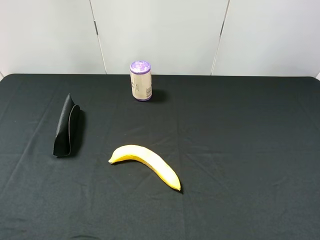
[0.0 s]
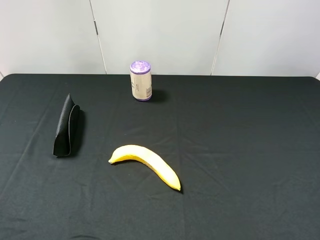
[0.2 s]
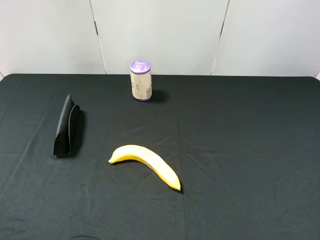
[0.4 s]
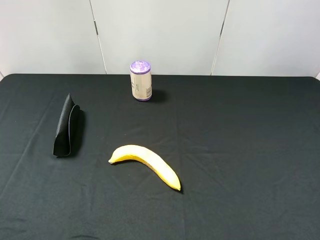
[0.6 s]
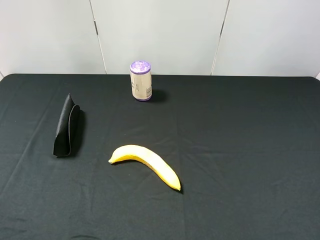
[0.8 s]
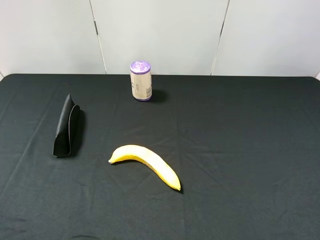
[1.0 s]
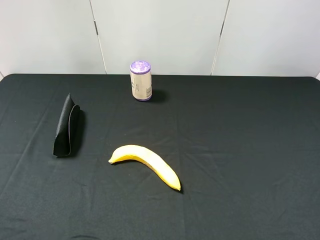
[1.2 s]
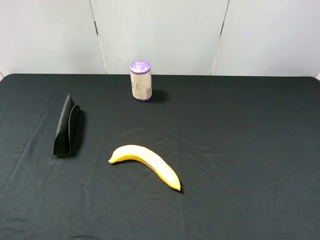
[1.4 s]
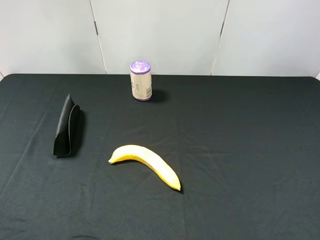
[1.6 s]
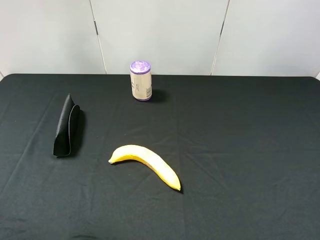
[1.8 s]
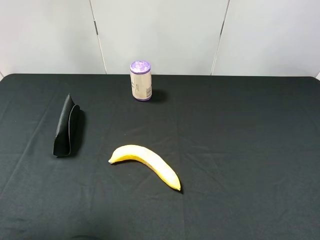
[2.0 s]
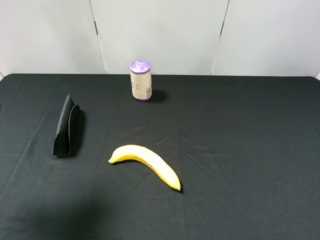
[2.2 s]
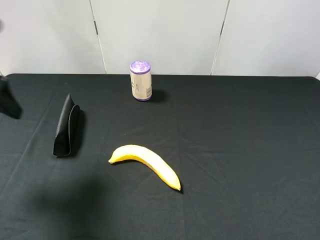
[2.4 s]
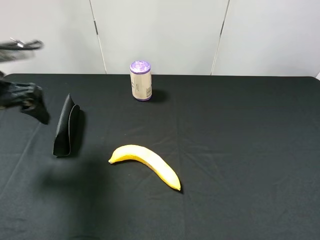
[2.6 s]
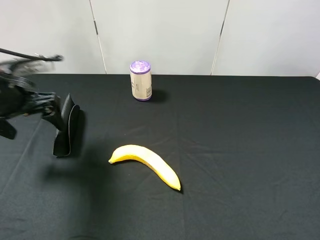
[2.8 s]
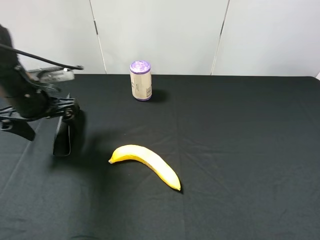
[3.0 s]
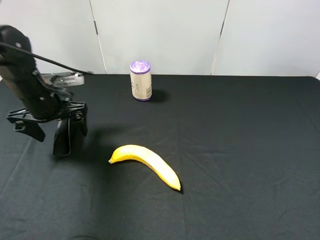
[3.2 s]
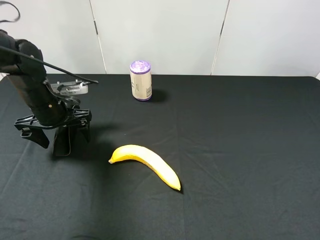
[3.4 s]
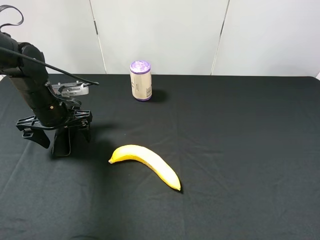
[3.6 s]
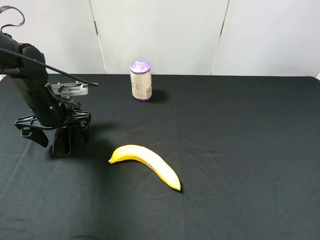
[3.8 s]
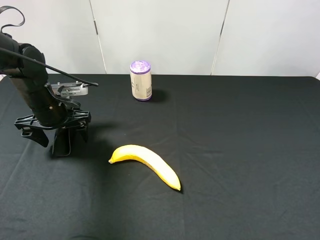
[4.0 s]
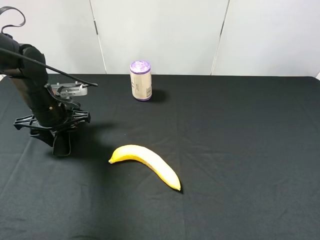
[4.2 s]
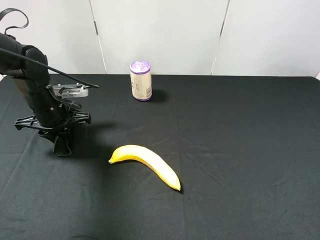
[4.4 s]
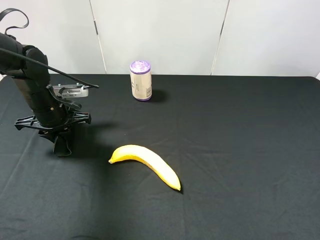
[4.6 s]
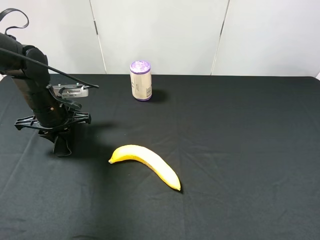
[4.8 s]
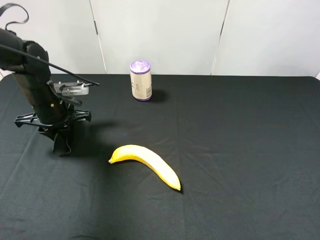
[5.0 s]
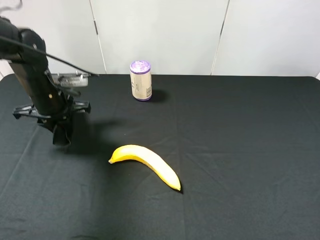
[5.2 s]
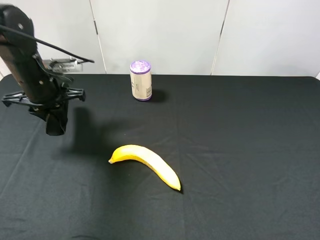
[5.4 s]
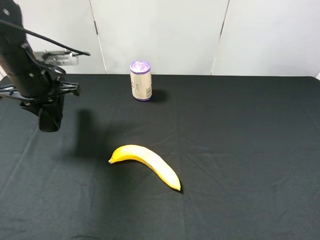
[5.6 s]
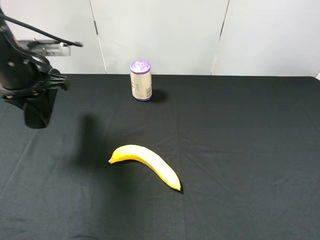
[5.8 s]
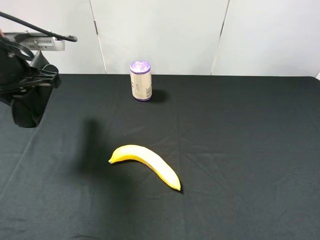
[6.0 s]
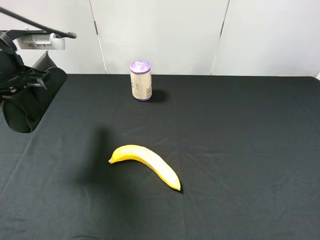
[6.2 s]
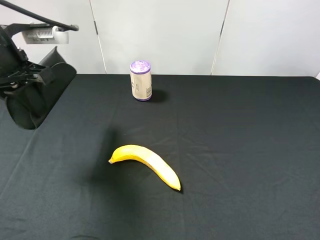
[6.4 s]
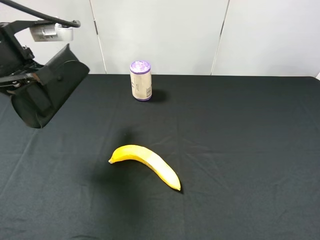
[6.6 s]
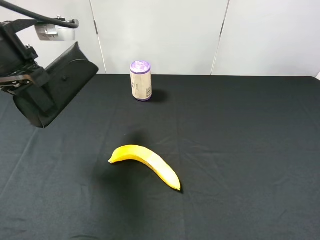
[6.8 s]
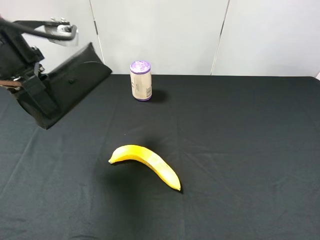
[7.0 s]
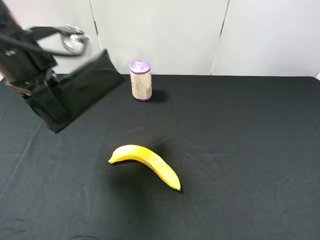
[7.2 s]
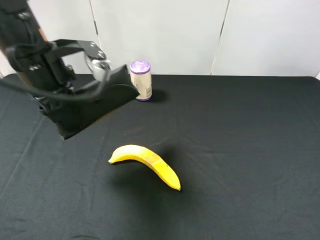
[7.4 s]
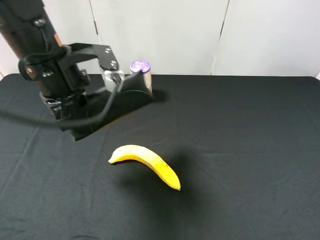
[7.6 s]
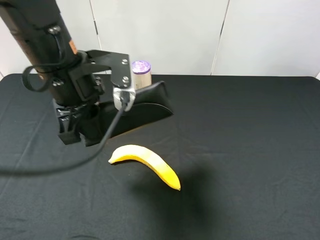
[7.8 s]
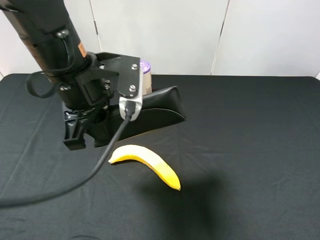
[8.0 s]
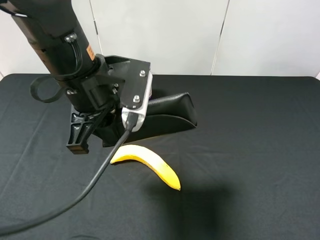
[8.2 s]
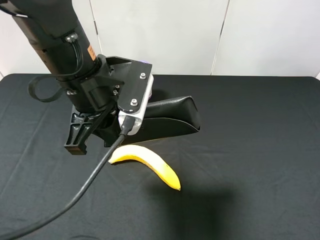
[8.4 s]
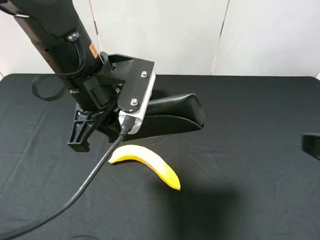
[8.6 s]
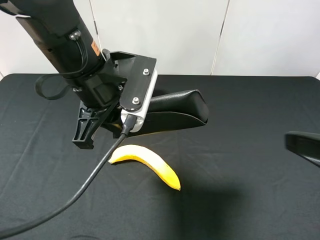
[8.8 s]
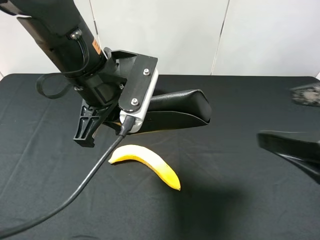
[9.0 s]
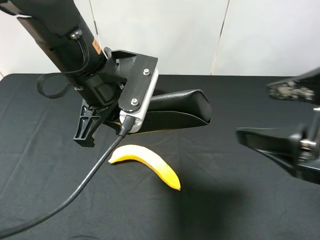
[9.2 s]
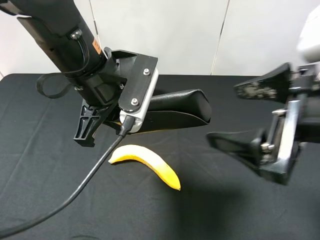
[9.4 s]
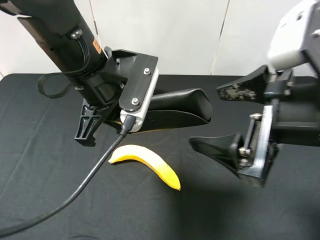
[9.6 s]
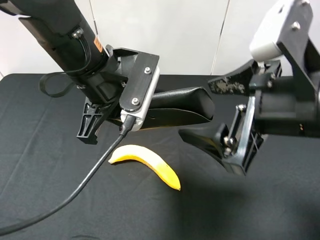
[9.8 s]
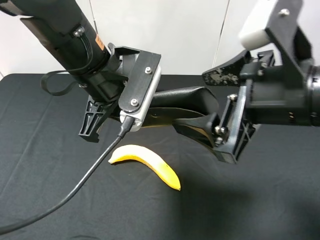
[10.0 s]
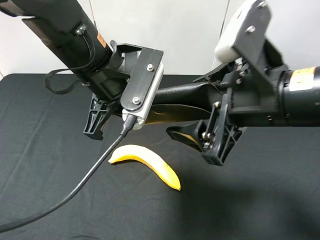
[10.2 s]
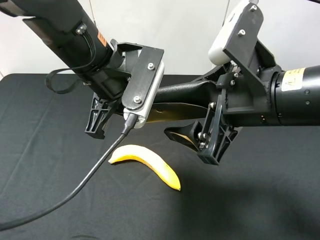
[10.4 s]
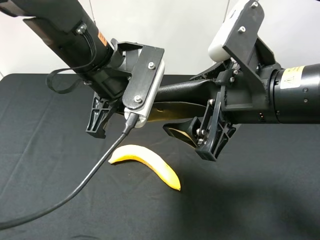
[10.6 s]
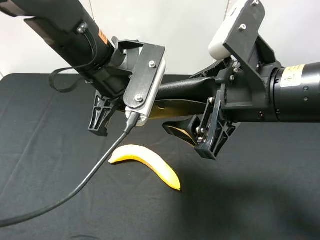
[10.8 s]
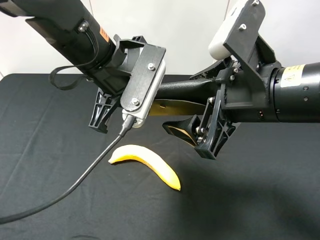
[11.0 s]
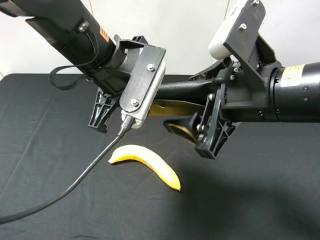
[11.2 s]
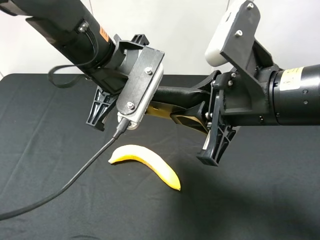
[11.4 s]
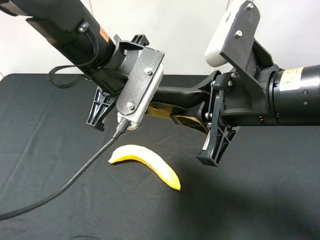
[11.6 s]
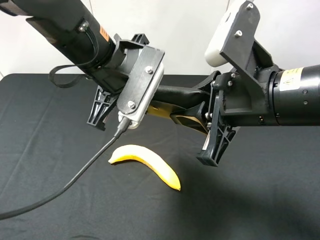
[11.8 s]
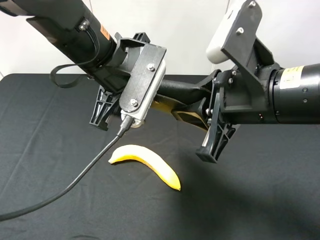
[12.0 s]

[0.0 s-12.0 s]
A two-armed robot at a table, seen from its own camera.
Task of the whole recording: use the left gripper to pick up the item and transfer it from the left gripper to the right gripper.
1.6 to 3.0 s: The left gripper heads forward and downward, covering about 30 cm.
3.0 to 4.4 s: The left gripper moves downward, approximately 5 cm, and closes.
4.4 to 6.0 s: The left gripper heads upward, covering roughly 15 cm.
6.0 to 7.6 s: The left gripper goes approximately 10 cm to the right.
7.6 to 9.0 s: The left gripper travels to the right by about 5 cm, while the right gripper is displaced forward and to the left by roughly 10 cm.
9.0 to 10.4 s: The right gripper is displaced to the left and forward by some 10 cm.
10.4 to 12.0 s: The left gripper opens. Meanwhile the right gripper closes its fingers.

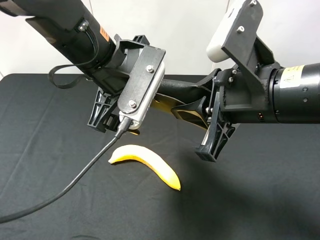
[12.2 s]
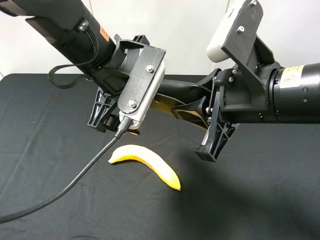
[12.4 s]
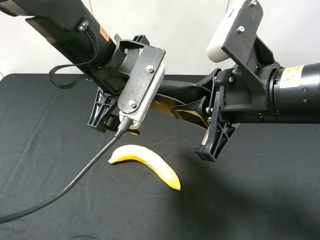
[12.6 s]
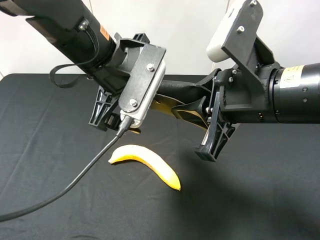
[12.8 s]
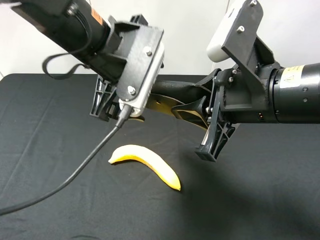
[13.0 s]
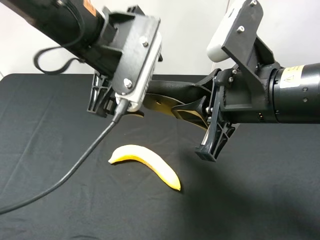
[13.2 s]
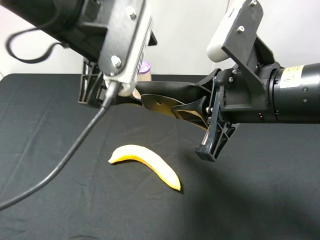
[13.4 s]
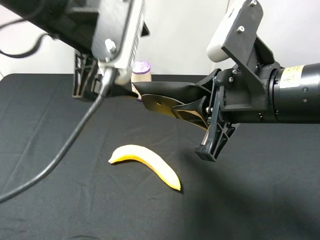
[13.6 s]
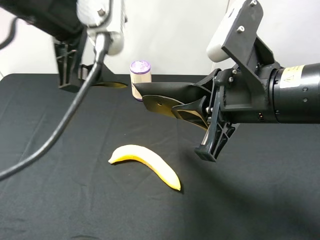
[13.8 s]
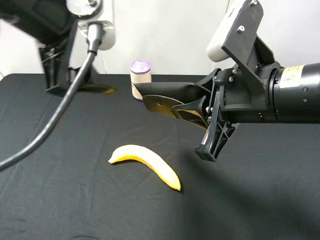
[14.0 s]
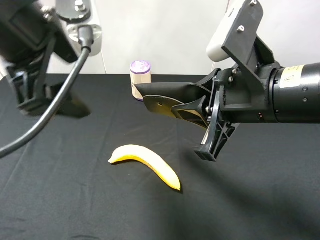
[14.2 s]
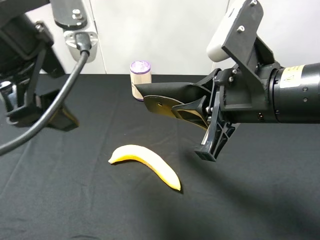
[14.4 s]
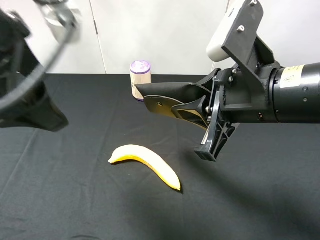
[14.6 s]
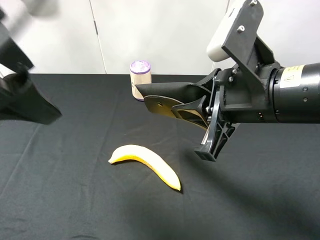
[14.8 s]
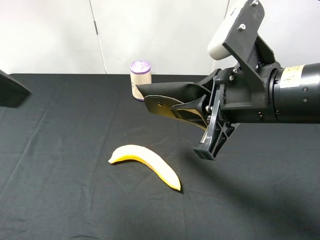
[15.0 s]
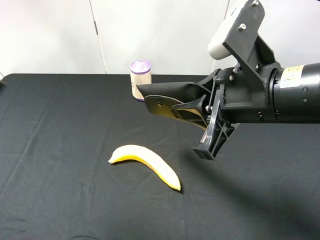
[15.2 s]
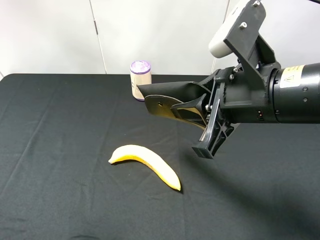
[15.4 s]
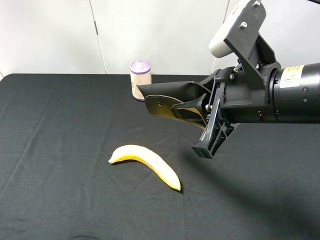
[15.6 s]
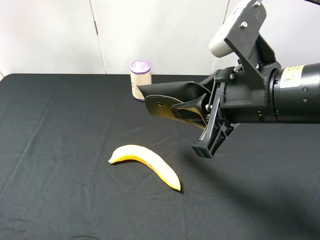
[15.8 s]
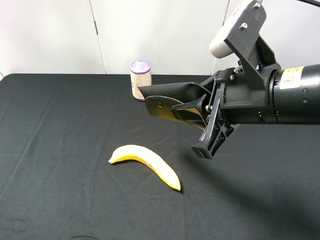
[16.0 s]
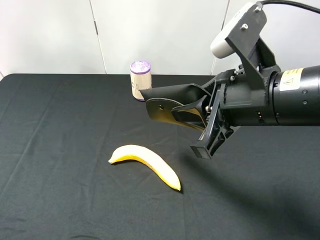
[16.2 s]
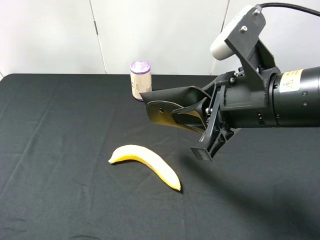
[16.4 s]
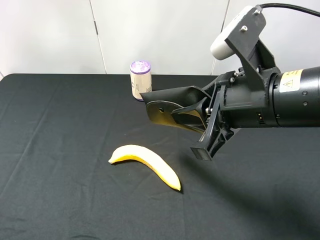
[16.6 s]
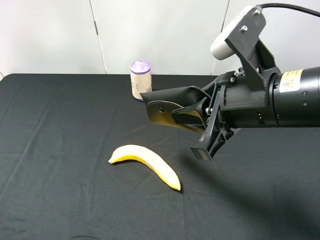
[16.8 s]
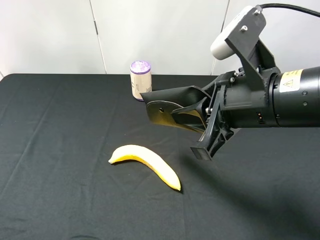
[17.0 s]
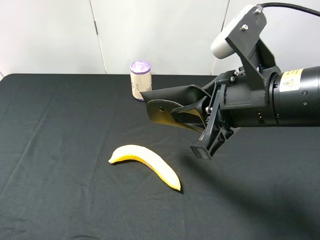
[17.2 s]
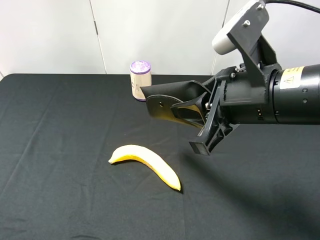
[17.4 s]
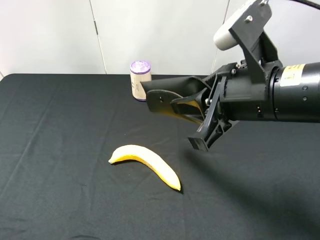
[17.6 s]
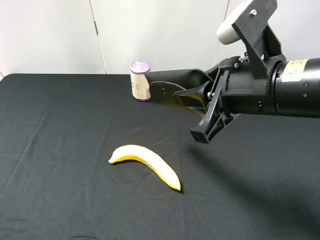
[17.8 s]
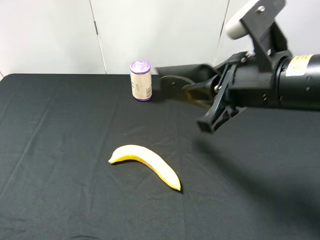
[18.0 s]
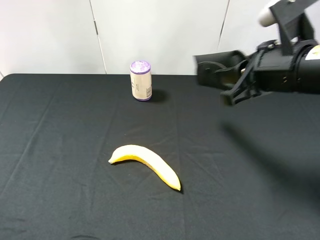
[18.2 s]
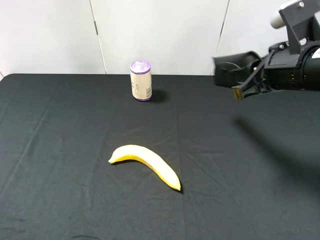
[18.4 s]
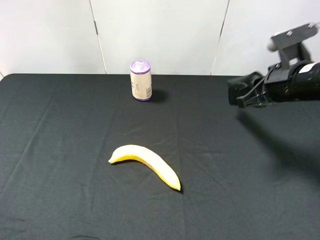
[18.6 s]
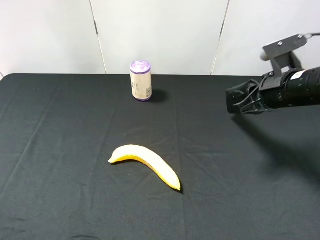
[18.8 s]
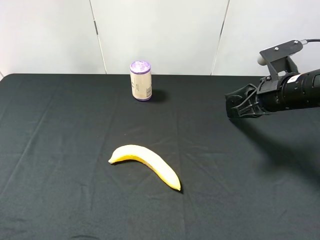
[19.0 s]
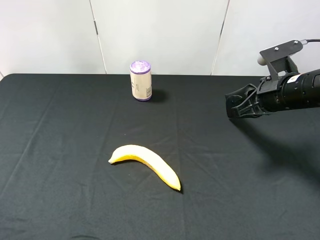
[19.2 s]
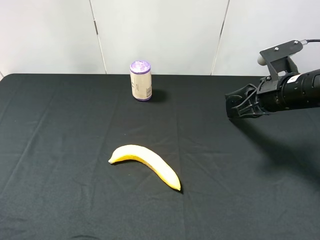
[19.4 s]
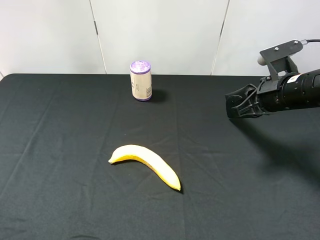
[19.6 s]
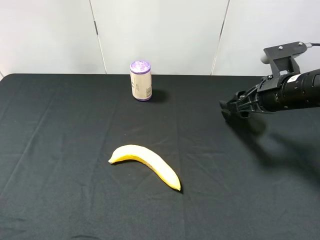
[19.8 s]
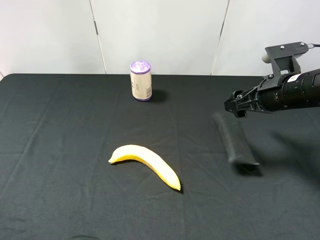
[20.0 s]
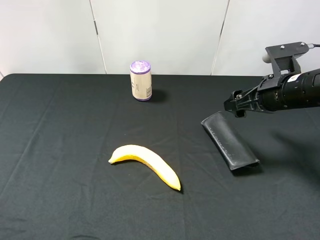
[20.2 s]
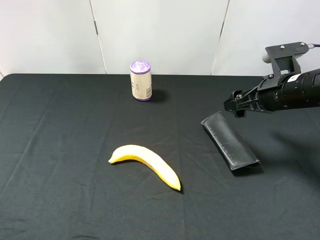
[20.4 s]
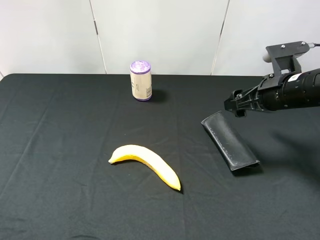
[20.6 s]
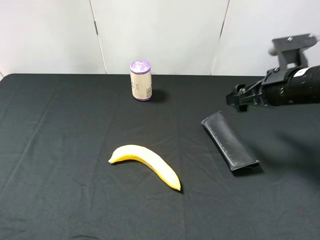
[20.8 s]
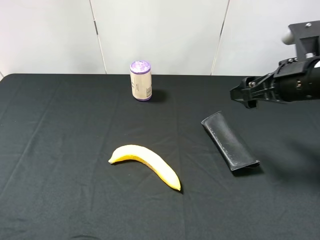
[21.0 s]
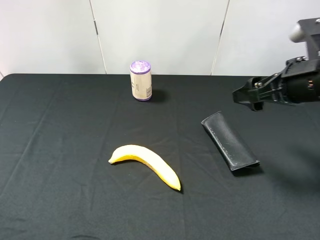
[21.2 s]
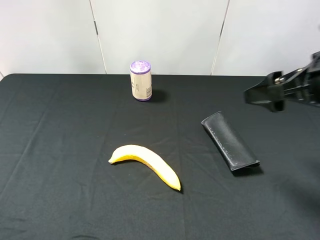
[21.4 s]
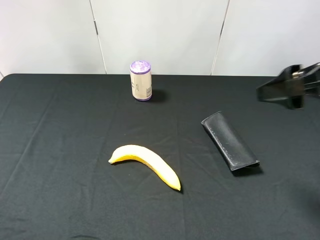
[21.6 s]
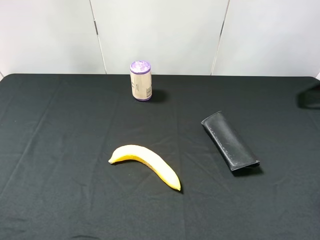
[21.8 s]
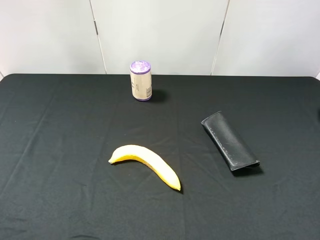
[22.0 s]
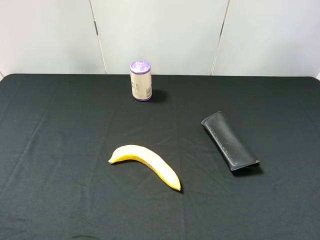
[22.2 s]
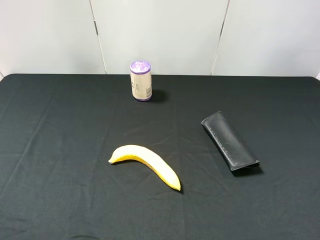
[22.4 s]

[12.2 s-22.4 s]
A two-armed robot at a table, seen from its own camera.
Task of the whole recording: use the left gripper to pick up the item and transfer it from the left gripper to the right gripper.
12.2 to 13.6 s: The left gripper is displaced upward by approximately 5 cm.
13.6 to 15.2 s: The left gripper shifts about 20 cm to the left, backward and upward.
15.2 to 16.6 s: The left gripper shifts about 20 cm downward, backward and to the left.
18.0 to 19.4 s: The right gripper shifts roughly 15 cm to the right, forward and downward.
19.4 to 21.0 s: The right gripper changes place by approximately 5 cm, and opens its fingers.
21.0 to 22.4 s: The right gripper travels backward by roughly 20 cm.
